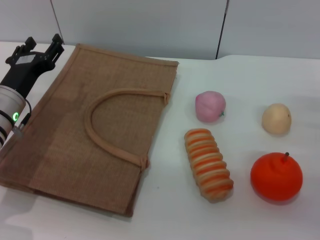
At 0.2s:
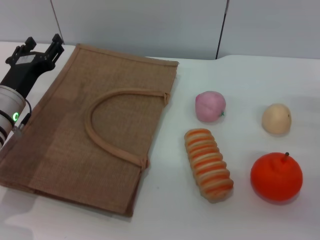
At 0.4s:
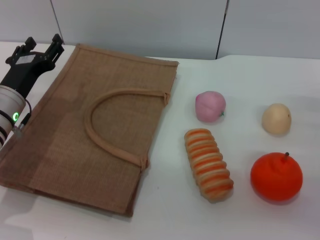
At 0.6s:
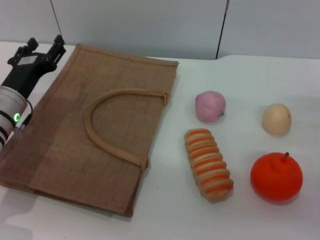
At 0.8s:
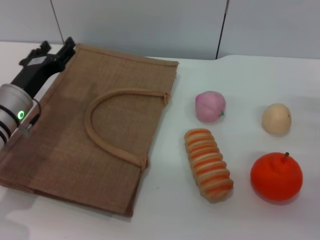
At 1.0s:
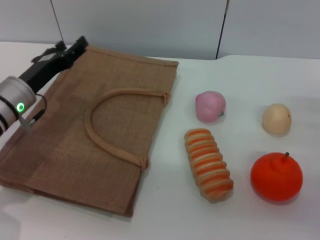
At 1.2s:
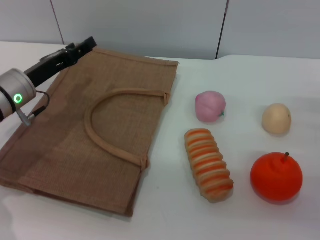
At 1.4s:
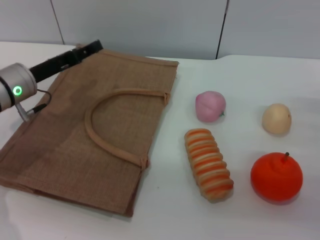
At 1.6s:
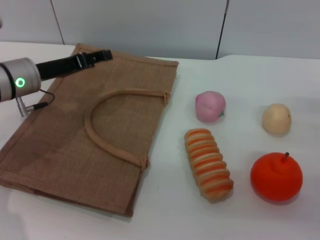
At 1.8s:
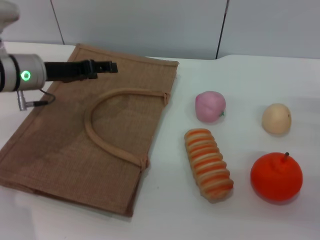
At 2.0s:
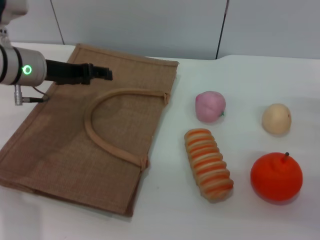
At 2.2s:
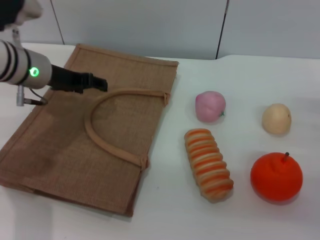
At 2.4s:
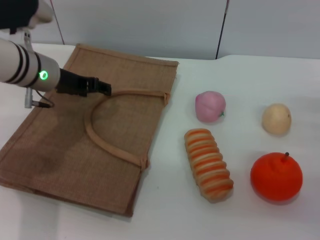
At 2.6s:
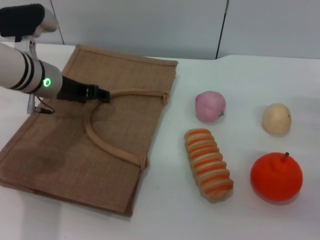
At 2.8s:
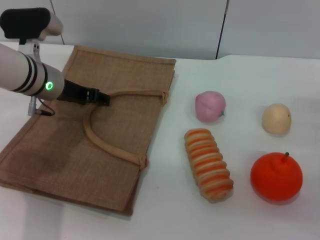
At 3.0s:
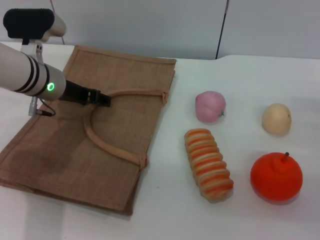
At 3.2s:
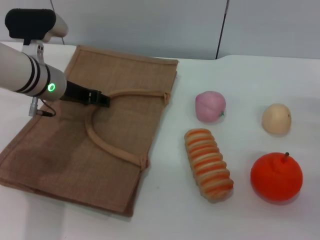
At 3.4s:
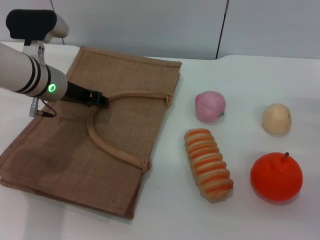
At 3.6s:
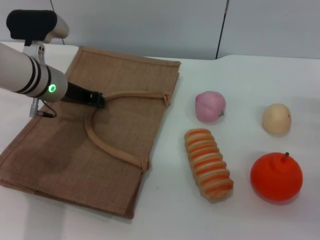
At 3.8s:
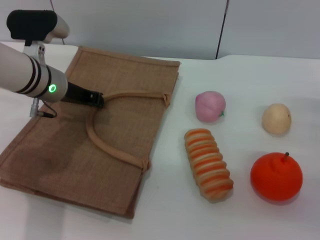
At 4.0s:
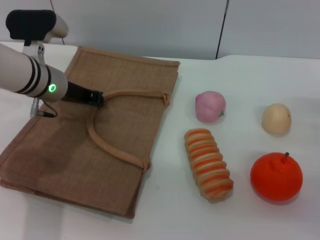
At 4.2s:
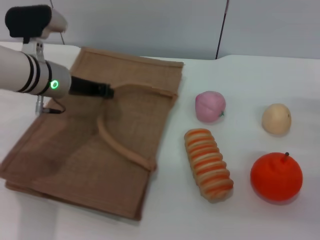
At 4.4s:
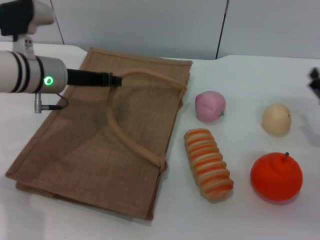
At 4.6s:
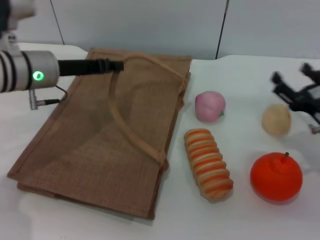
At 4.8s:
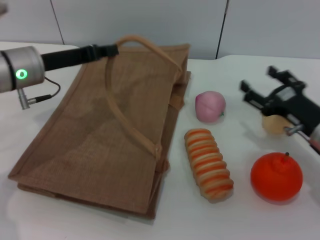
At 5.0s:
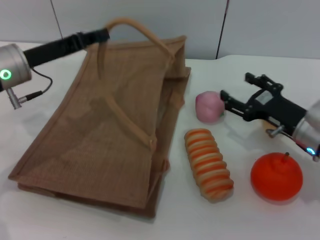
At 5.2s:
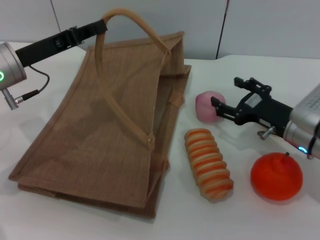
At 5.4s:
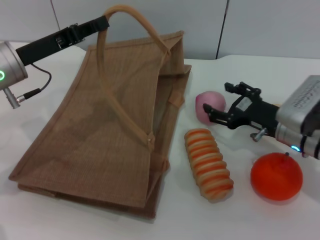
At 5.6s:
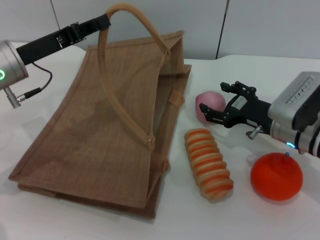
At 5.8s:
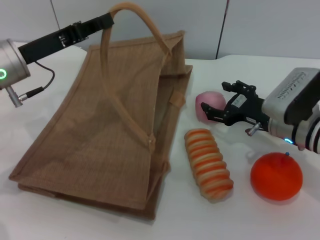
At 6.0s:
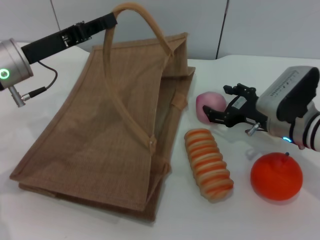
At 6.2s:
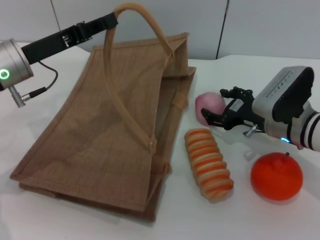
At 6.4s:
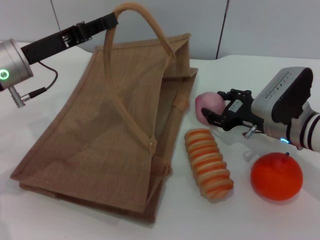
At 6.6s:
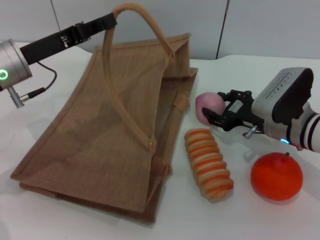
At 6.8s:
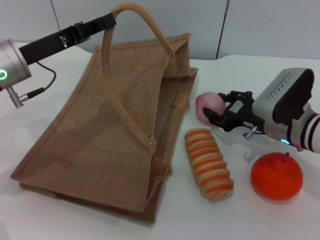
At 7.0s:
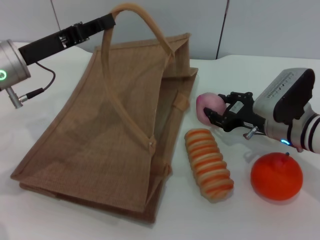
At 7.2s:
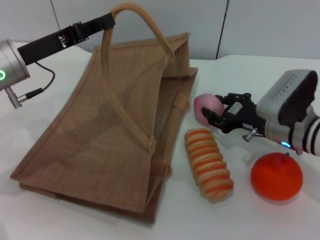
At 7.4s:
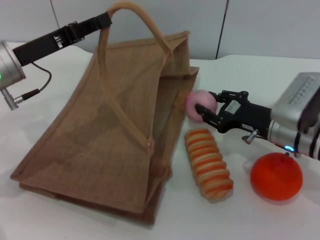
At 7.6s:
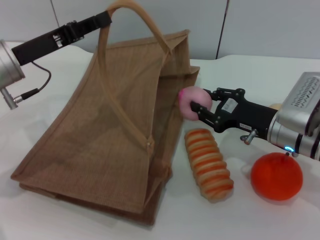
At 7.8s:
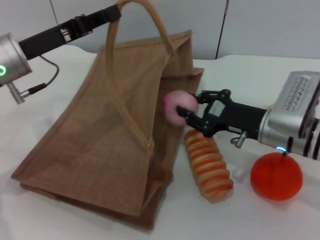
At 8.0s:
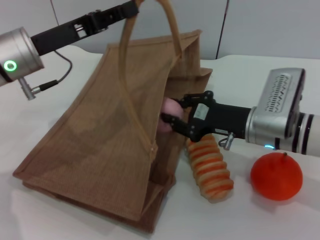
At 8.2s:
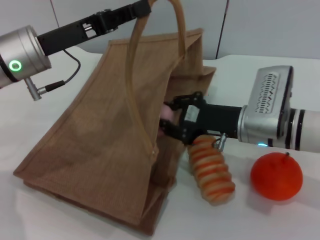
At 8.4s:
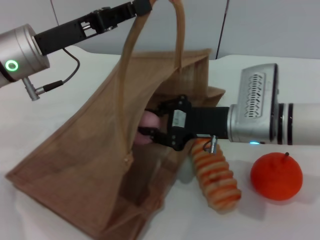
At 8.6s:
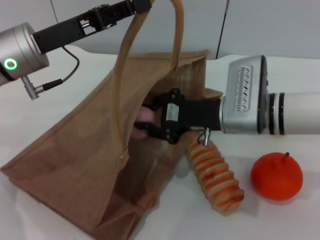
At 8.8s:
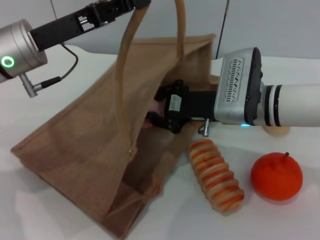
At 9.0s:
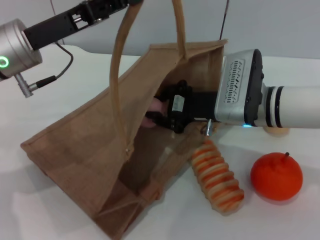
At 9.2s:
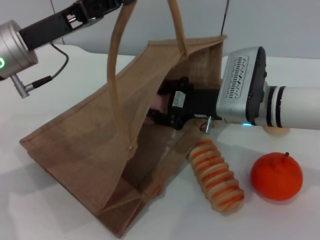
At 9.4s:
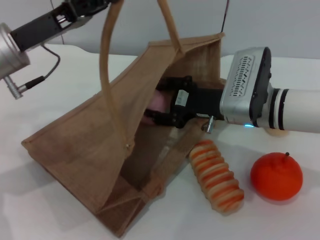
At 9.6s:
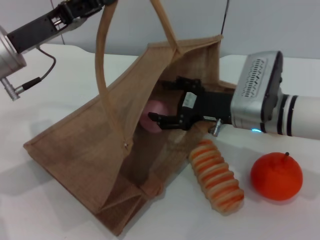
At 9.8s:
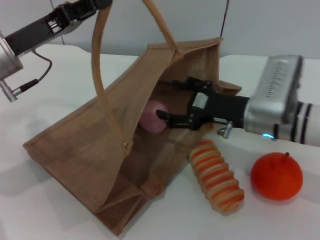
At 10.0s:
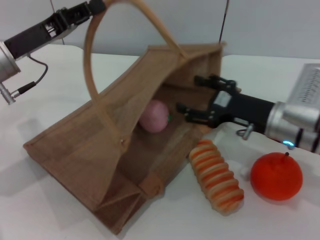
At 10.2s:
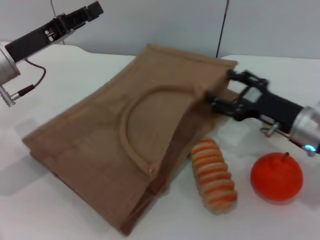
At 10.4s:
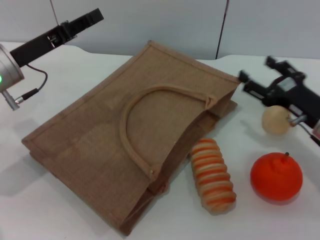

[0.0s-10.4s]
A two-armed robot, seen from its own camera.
Task of the whole recording: pick up the peach from the table and place it in the brown handbag.
Step, 0.0s to 4.4s: Lift the woven bag with the left gripper to open it.
Step, 4.6s to 7.2s: Pick up the peach with the right gripper.
Step, 7.6s to 9.8s: Place the peach into the woven bag with the right gripper.
0.0s to 1.4s: The left gripper shifts by approximately 5 cm.
1.4s to 3.0s: The left gripper travels to the right by approximately 5 cm.
3.0s to 4.4s: The left gripper closes up.
4.4s to 6.0s: The right gripper shifts some 15 cm to the left and forward; the left gripper ends up roughly 5 cm from where it was.
6.0s to 7.4s: The right gripper closes.
7.4s to 9.0s: The right gripper goes about 10 cm to the left.
9.0s to 10.4s: The right gripper travels to the right by about 15 cm, and opens up. The left gripper moves roughly 5 cm.

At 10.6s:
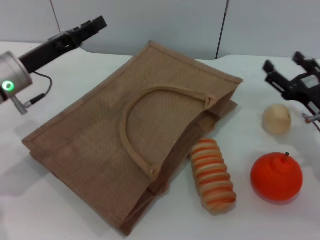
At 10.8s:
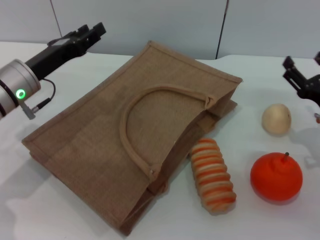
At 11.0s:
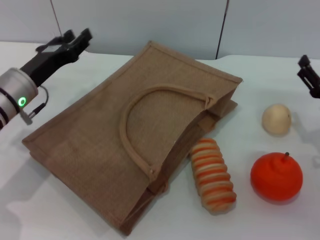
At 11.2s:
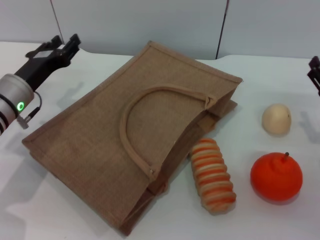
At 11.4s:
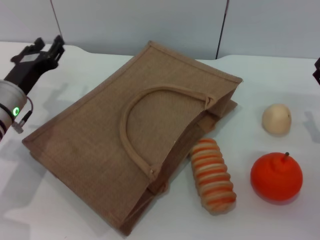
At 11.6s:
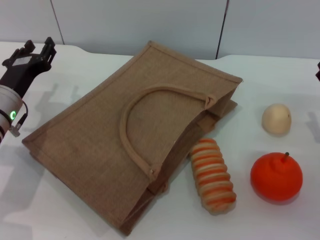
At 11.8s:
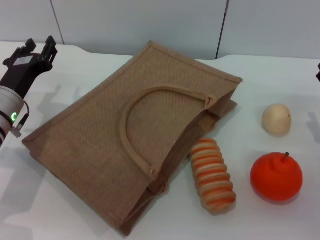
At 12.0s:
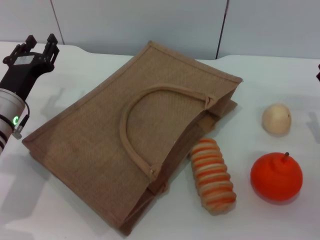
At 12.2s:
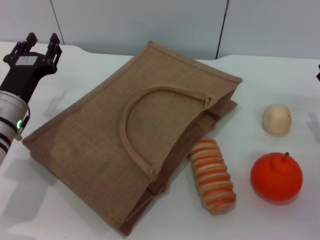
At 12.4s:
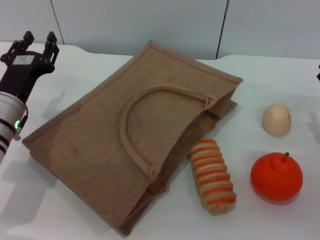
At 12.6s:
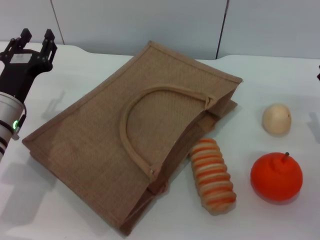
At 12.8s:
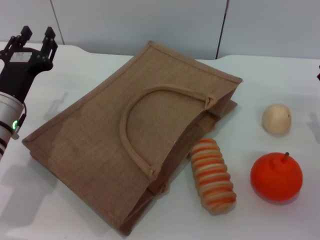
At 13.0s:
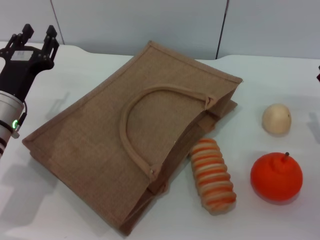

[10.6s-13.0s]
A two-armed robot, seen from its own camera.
Task of the whole recording: pick up the peach from the table and place it in the brown handbag.
10.6s to 11.8s: The left gripper moves downward, some 5 cm.
11.8s to 13.0s: There are only small adjustments of the grippers.

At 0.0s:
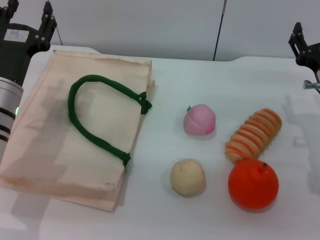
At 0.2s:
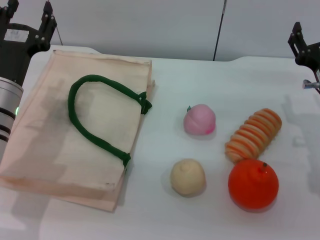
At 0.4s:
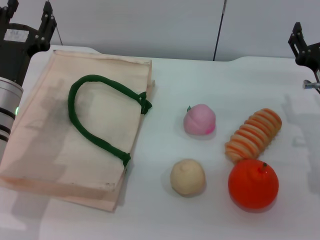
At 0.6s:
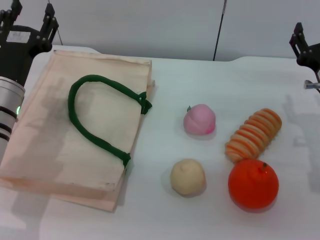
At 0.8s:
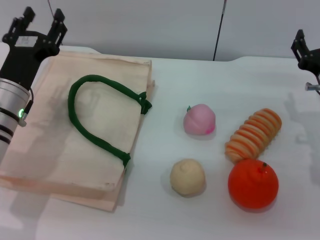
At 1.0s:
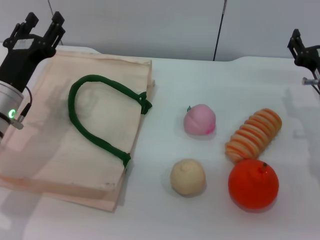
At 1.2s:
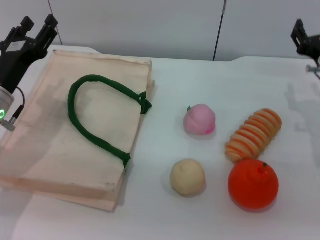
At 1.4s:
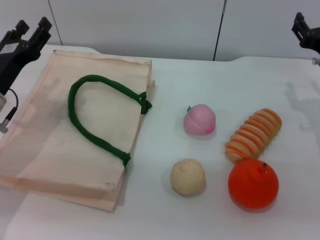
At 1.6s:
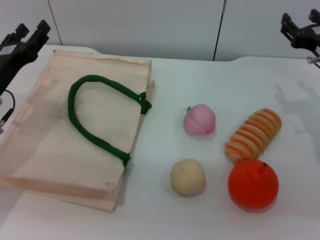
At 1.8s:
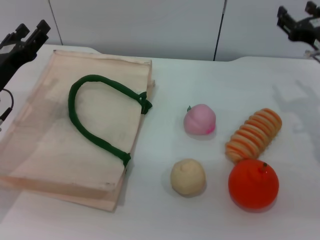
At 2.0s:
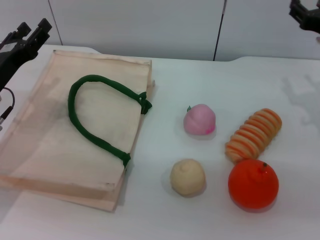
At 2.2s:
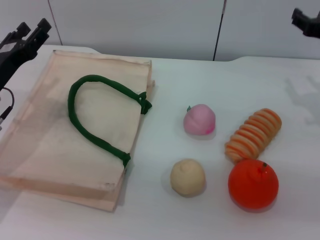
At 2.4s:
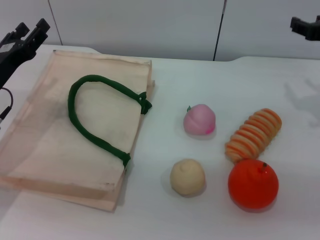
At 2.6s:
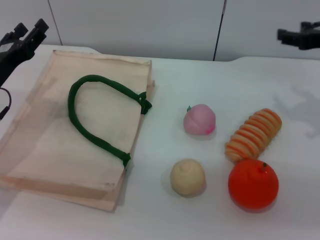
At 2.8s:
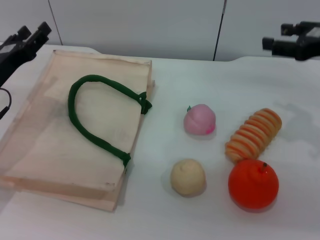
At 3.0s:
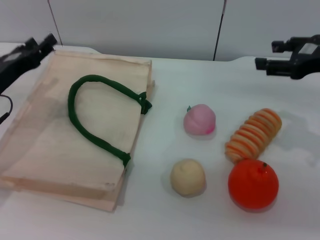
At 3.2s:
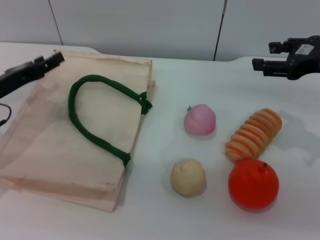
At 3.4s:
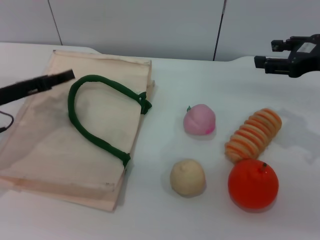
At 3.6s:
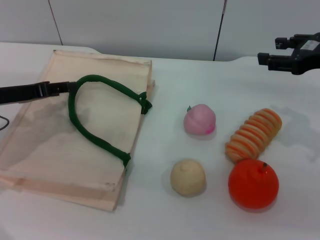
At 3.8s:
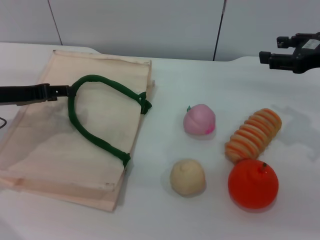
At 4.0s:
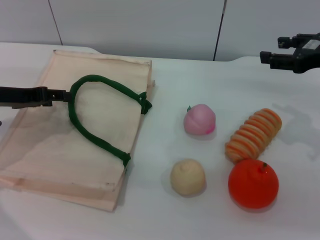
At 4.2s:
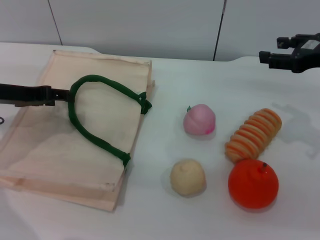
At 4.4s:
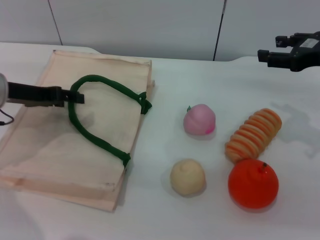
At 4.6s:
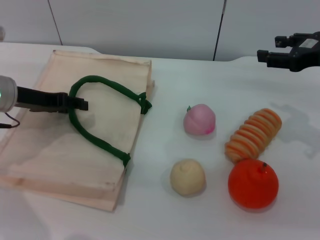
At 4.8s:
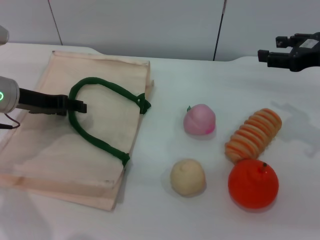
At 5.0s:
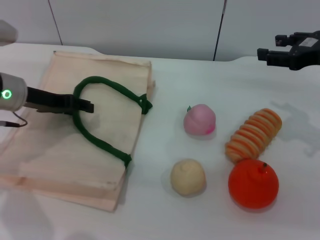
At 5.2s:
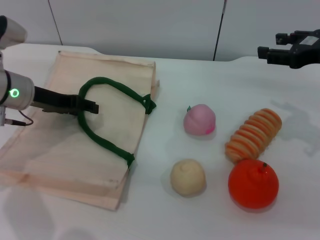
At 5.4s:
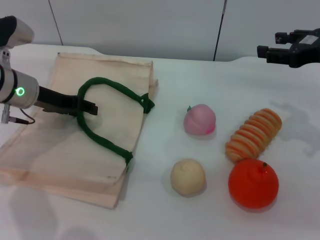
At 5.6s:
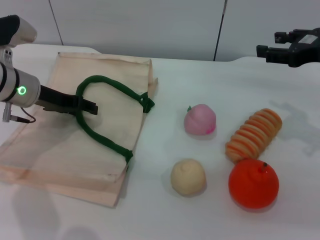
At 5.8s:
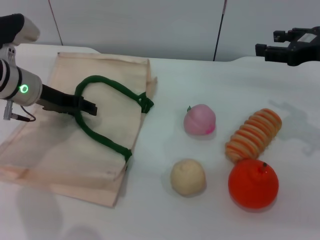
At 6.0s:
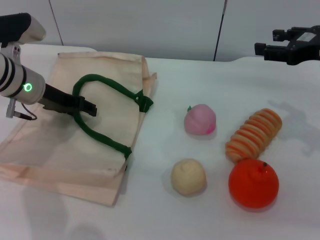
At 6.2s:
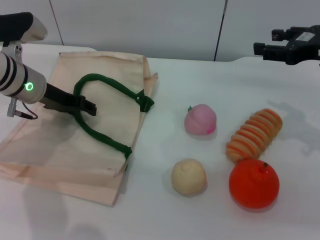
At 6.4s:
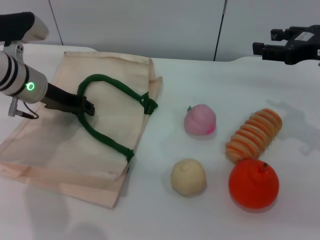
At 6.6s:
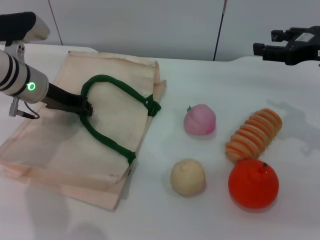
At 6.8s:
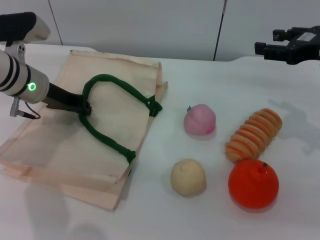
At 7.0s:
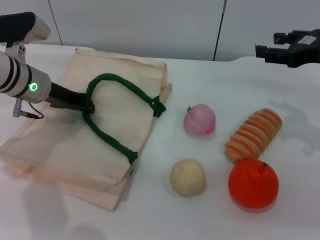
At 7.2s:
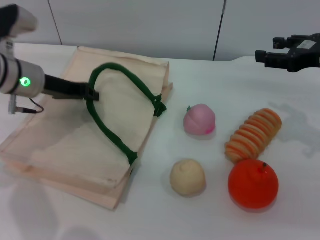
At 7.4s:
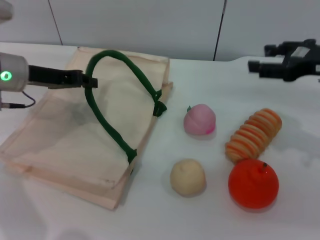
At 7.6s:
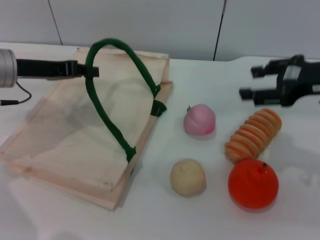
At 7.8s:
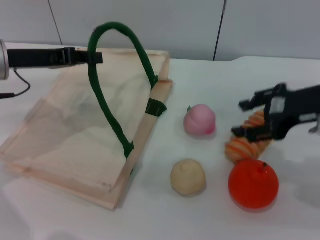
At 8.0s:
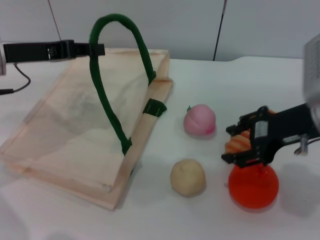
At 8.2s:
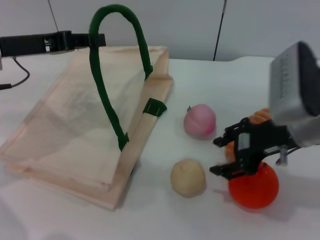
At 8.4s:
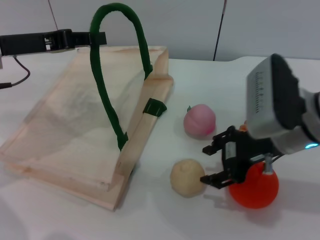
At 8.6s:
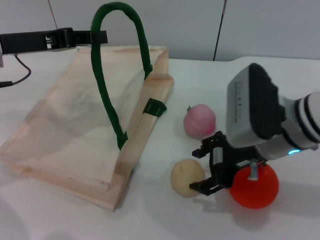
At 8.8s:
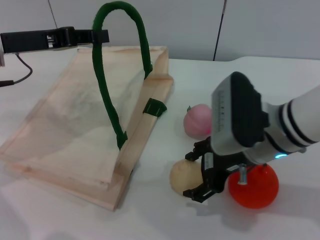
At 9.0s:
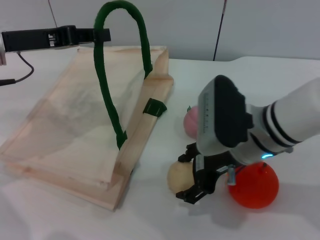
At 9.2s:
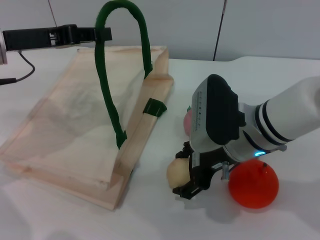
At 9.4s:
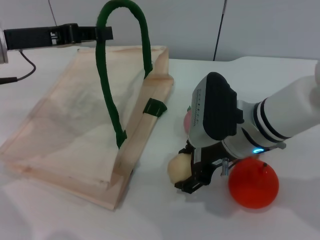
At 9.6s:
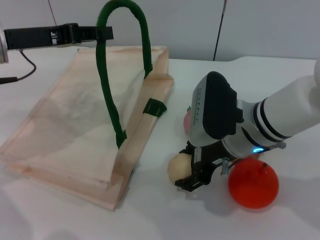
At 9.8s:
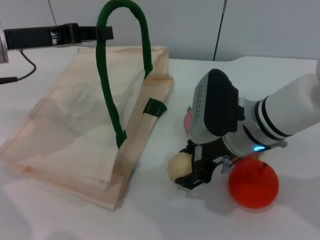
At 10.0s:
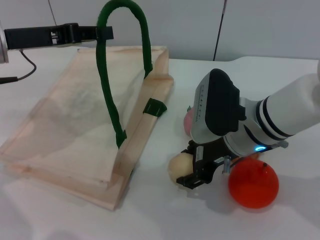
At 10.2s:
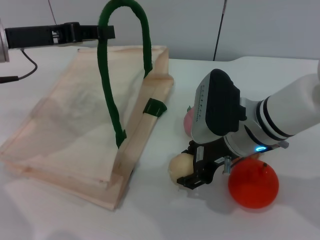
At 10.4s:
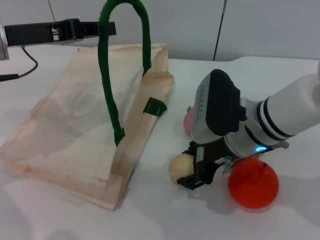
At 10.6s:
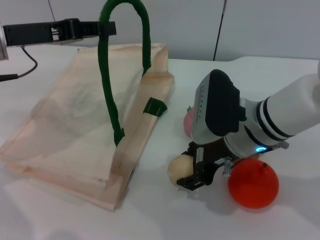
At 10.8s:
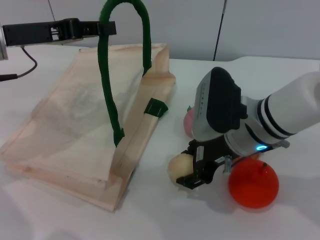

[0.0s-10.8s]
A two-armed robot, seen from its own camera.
Task of the whole recording: pick up the egg yolk pastry from the table and place it in the white handbag.
Step, 0.0s to 7.2s: Lift the woven bag with the left gripper to open it.
0.0s to 1.6s: The right gripper shifts by roughly 5 cm, and closes up.
1.6s to 3.0s: The right gripper goes about 5 cm upward.
3.0s to 4.6s: The left gripper ends up approximately 5 cm from where it was.
4.6s to 6.2s: The left gripper ends up approximately 5 cm from where it was.
6.2s to 7.8s: The right gripper shifts by about 5 cm, while the left gripper travels upward by approximately 5 cm, and closes up.
7.8s to 9.2s: The right gripper is displaced to the left and downward by roughly 15 cm, and opens up.
9.2s to 10.8s: The right gripper closes up.
